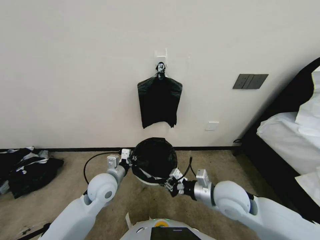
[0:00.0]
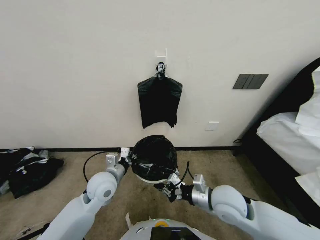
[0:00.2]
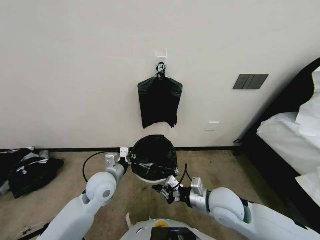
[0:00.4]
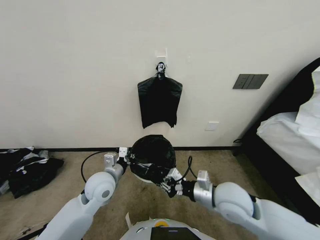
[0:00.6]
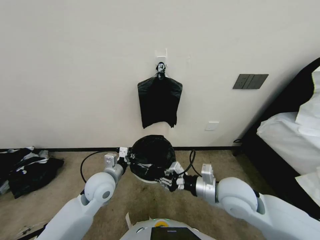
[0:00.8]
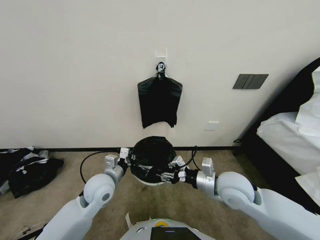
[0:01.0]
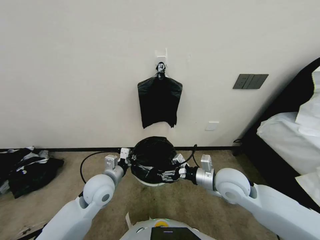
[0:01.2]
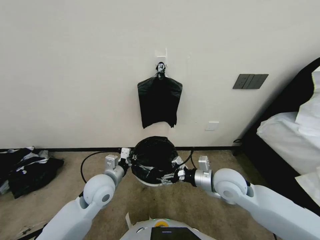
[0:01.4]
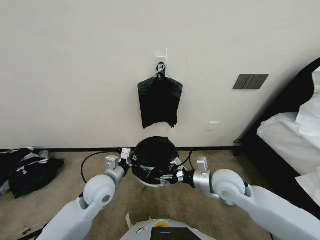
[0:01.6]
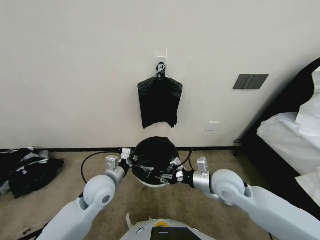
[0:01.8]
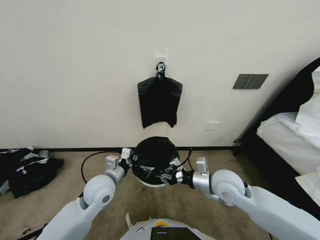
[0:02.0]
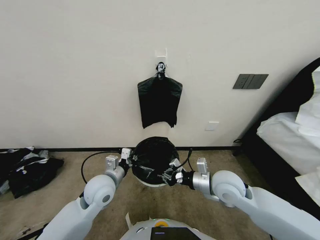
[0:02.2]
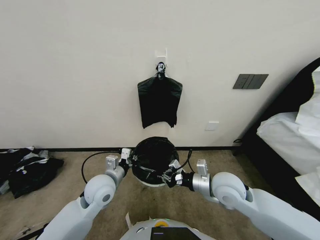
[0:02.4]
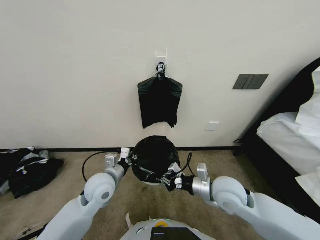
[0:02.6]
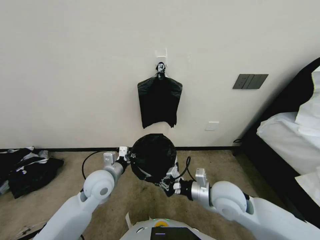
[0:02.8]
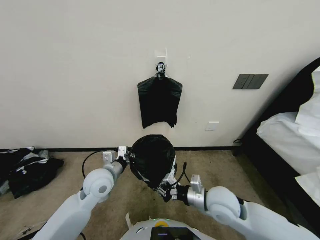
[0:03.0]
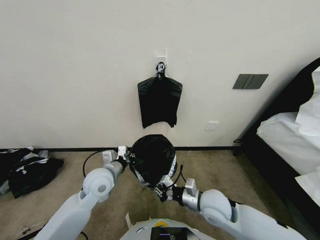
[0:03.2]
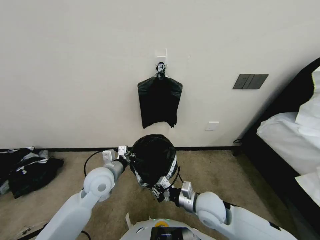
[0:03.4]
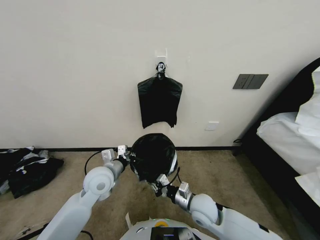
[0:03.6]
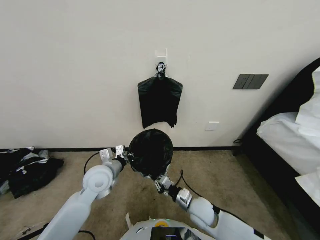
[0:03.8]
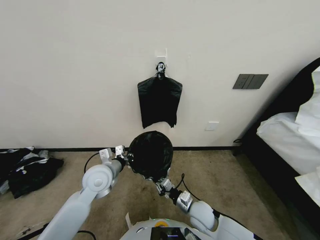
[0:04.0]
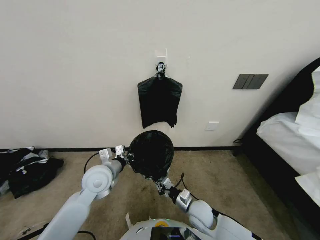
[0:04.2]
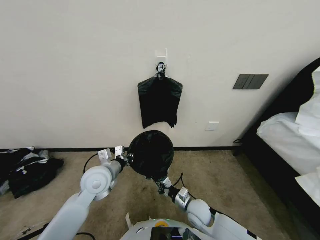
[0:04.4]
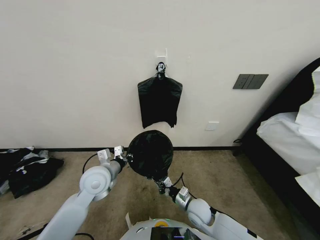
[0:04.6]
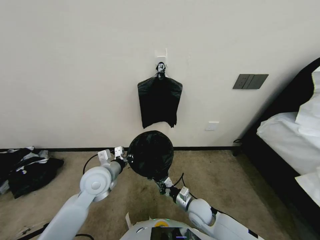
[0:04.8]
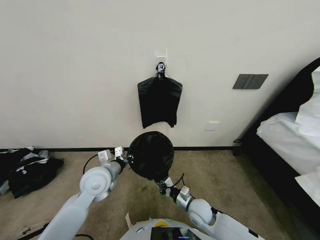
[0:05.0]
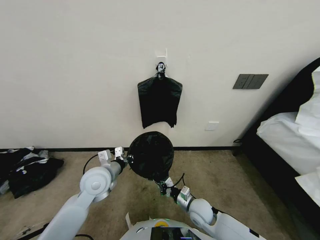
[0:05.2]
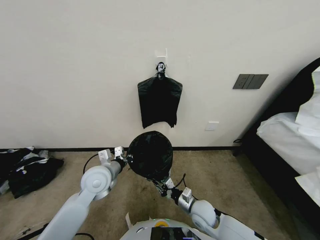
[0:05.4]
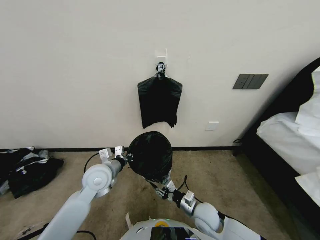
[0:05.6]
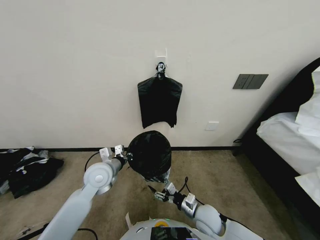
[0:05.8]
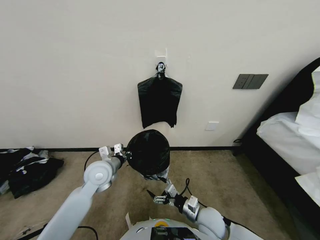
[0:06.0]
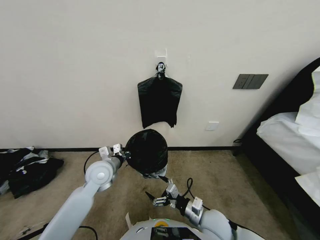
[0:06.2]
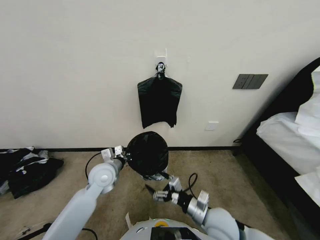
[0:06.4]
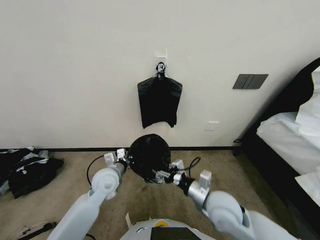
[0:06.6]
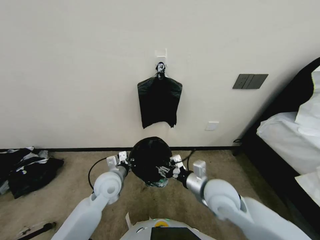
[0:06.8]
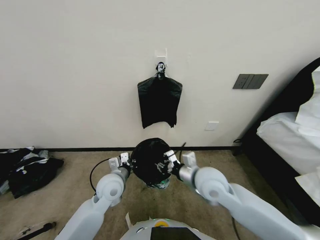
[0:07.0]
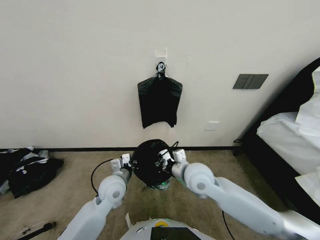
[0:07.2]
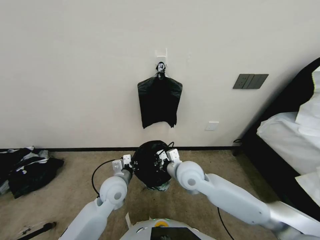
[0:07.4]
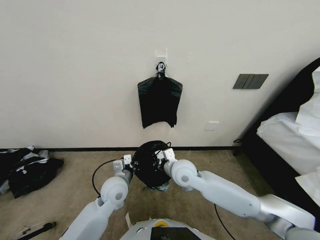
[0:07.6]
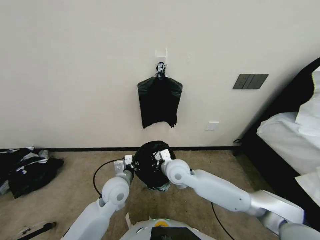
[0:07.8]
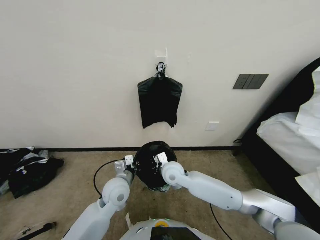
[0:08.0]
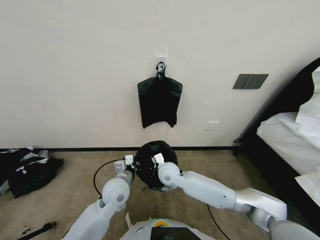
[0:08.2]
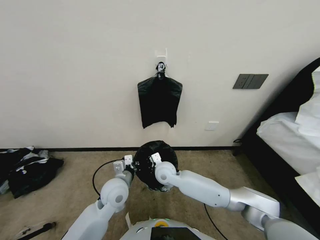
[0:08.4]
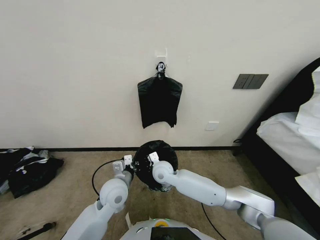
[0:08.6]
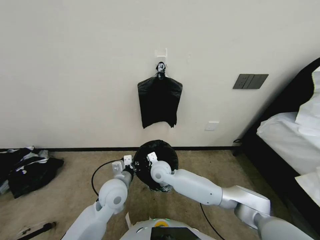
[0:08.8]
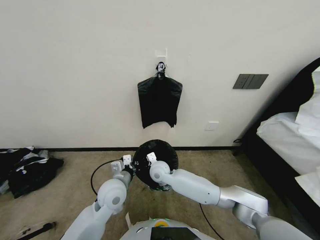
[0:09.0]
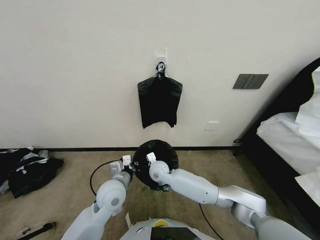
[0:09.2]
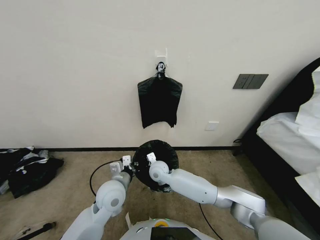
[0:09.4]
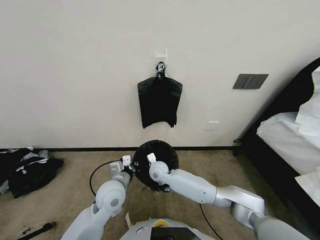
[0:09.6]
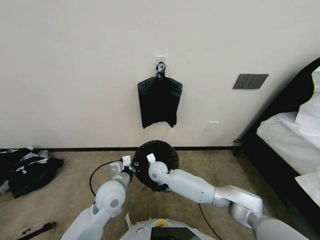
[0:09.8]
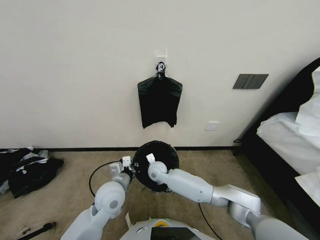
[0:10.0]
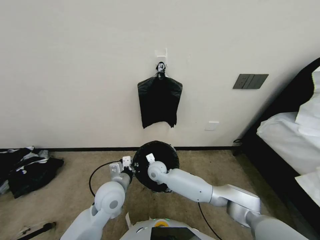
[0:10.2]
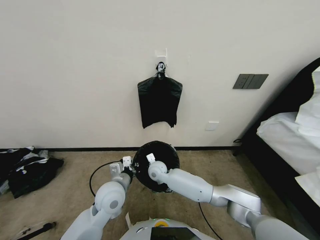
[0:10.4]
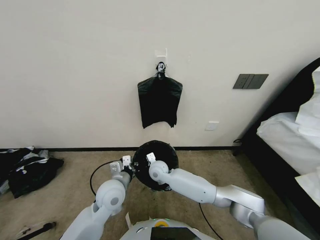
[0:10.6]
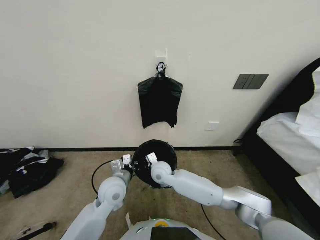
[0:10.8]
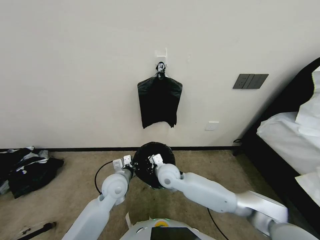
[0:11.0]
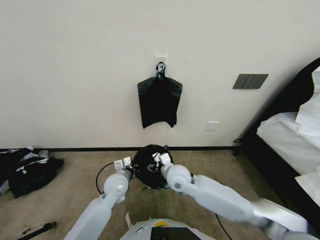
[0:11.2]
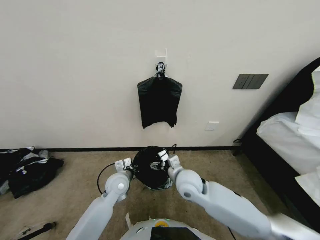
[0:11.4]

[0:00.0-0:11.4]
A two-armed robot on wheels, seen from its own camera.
Task of the whole recording: Place a trash bag onto the trash bin.
0:00.0 to 0:01.4: The right gripper opens.
0:01.4 to 0:02.8: The right gripper closes its fingers.
0:02.8 to 0:04.2: The right gripper is displaced downward by some 15 cm.
0:04.2 to 0:05.6: The grippers make only small movements.
0:05.6 to 0:07.2: The left gripper moves approximately 5 cm, while the right gripper is displaced upward by roughly 20 cm, and opens, then closes once more.
0:07.2 to 0:08.6: The right gripper heads to the left, downward and forward, covering roughly 15 cm.
0:08.6 to 0:10.0: The right gripper goes about 5 cm downward.
0:10.0 to 0:11.4: The right gripper goes approximately 15 cm to the right, upward and backward, and opens up; the left gripper shifts about 10 cm downward and forward.

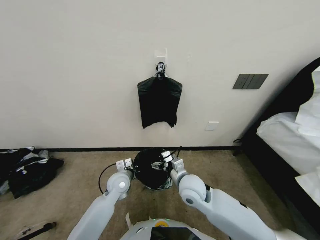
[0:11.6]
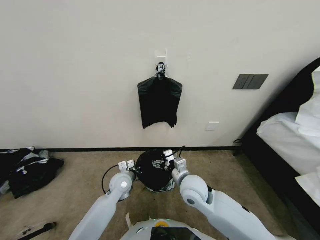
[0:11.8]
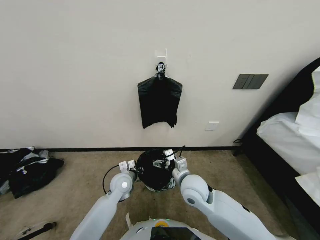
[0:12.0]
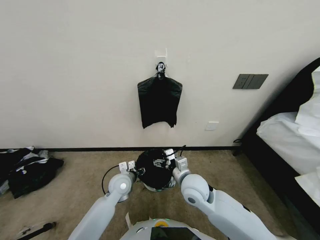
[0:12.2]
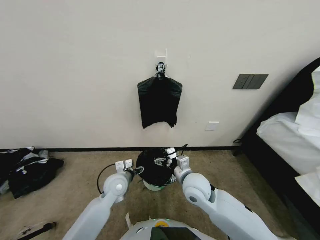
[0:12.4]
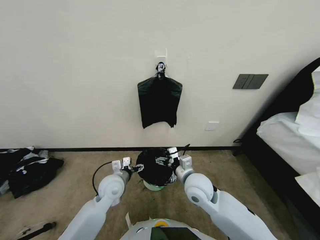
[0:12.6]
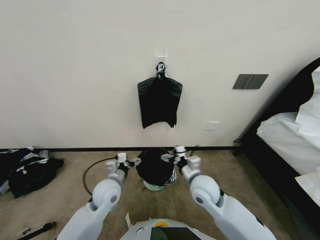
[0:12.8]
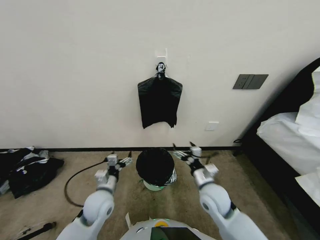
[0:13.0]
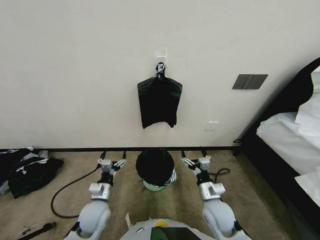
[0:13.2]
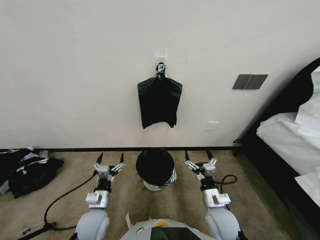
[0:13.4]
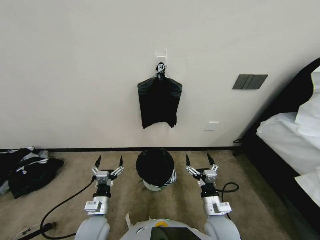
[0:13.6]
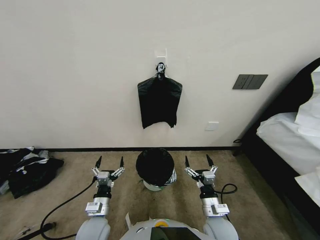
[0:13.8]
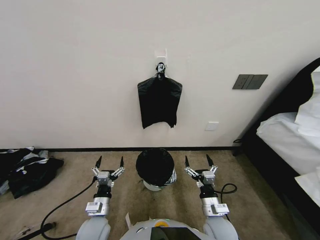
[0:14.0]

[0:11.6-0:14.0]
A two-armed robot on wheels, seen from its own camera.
Task of the whole recording: Place a trash bag onto the trash bin.
0:11.6 to 0:12.8: The left gripper changes place by about 5 cm, and opens its fingers.
0:12.8 to 0:14.0: The right gripper shifts approximately 15 cm backward, downward and to the right. The left gripper goes about 15 cm backward and downward.
